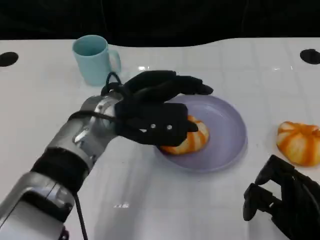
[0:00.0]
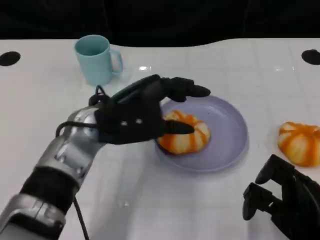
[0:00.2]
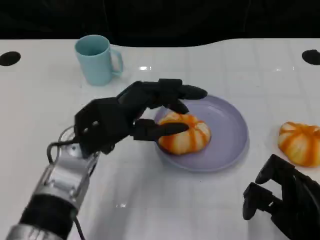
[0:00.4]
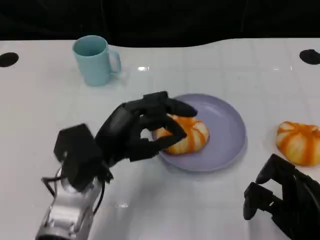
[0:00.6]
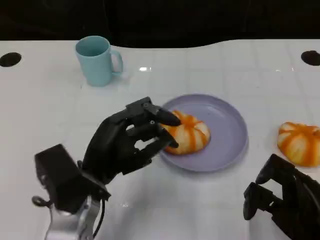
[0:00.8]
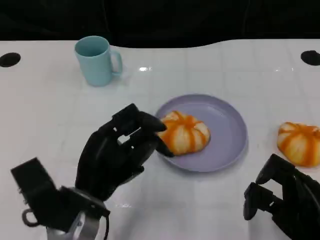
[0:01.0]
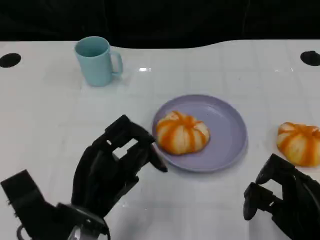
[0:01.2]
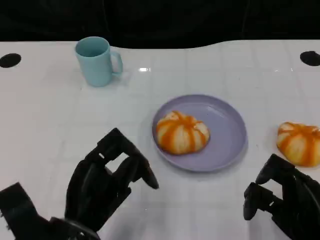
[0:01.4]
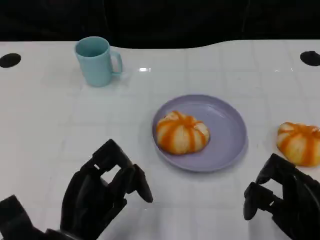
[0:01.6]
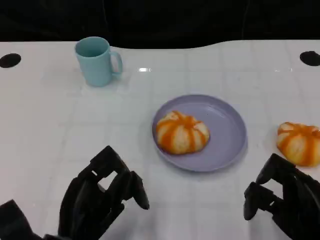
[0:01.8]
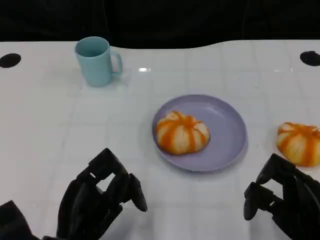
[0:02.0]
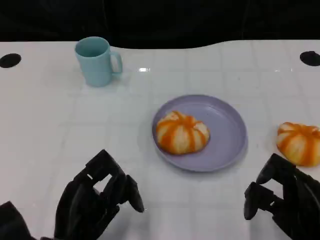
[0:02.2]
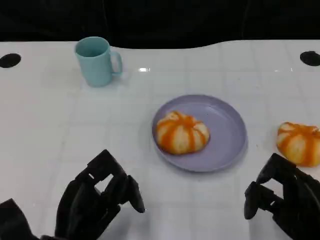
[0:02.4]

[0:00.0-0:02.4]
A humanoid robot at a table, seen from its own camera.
Task of the whole recording: Grasp the bread from the table and place it into the plate.
0:00.0 to 0:01.2: The left hand shifts approximately 15 cm backward, downward and to the left.
0:01.2 to 0:02.4: The hands move only a little.

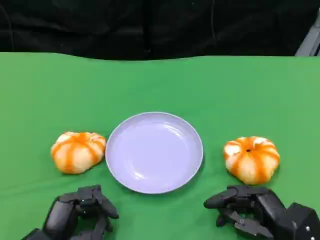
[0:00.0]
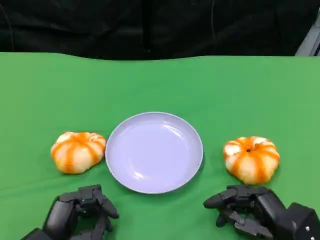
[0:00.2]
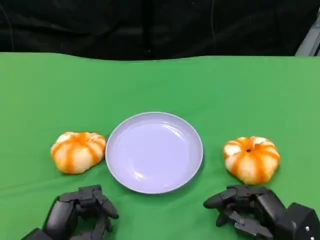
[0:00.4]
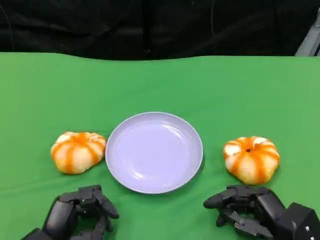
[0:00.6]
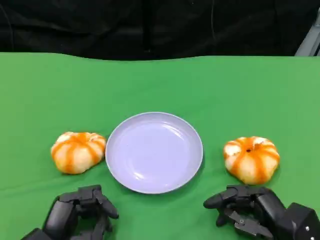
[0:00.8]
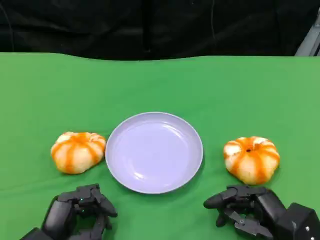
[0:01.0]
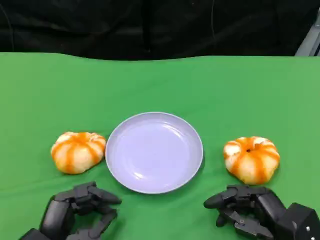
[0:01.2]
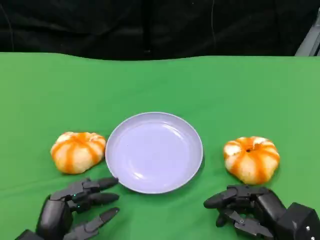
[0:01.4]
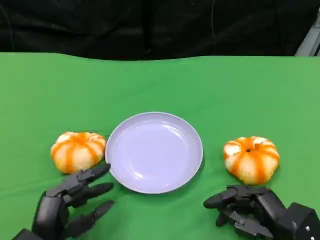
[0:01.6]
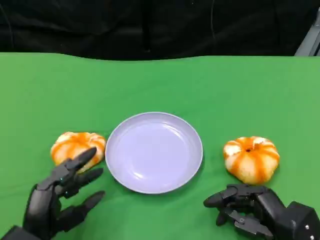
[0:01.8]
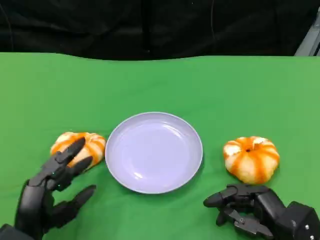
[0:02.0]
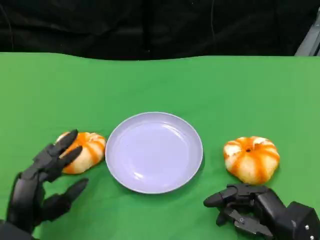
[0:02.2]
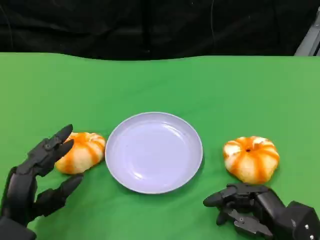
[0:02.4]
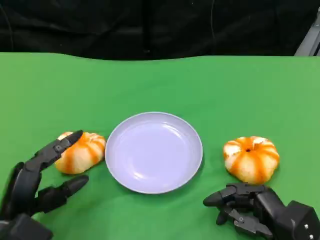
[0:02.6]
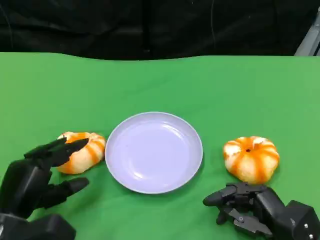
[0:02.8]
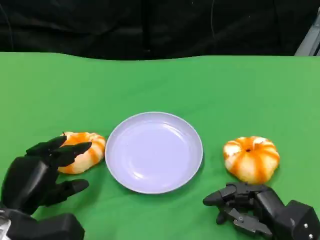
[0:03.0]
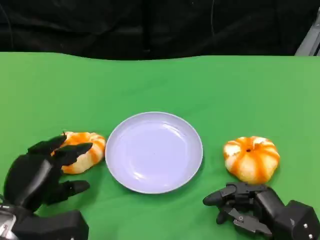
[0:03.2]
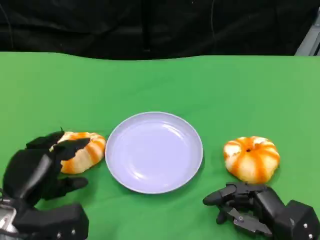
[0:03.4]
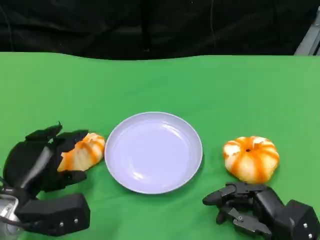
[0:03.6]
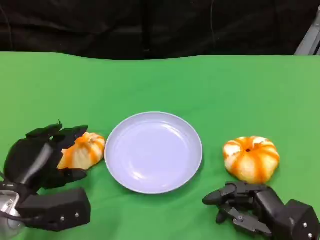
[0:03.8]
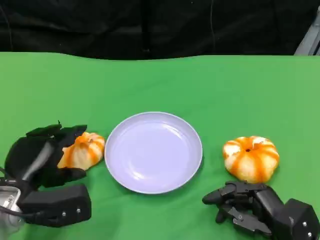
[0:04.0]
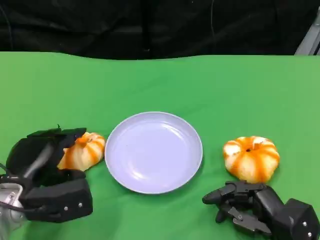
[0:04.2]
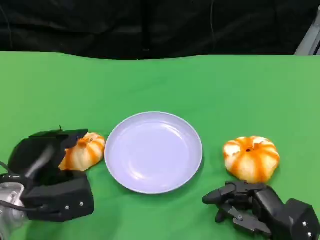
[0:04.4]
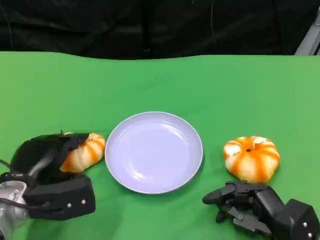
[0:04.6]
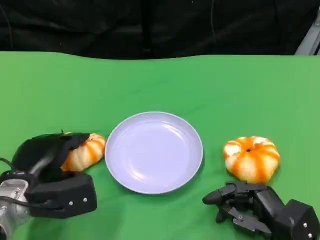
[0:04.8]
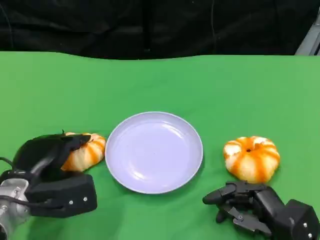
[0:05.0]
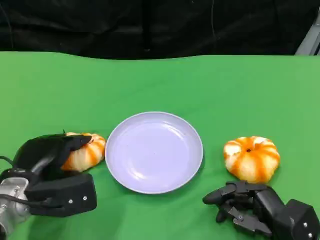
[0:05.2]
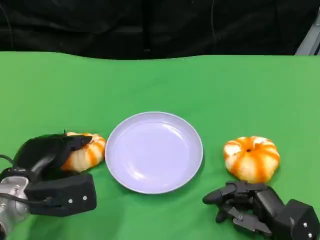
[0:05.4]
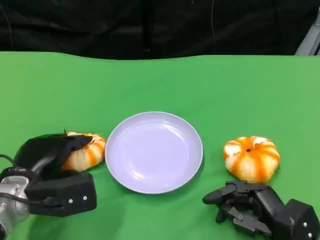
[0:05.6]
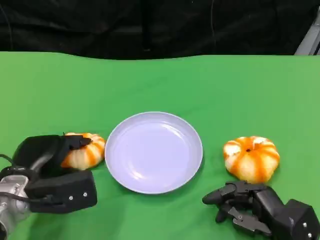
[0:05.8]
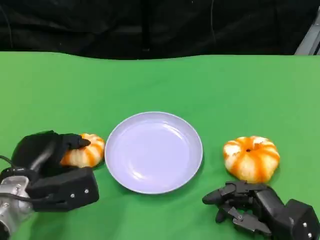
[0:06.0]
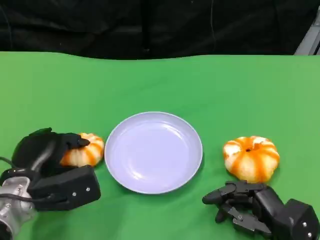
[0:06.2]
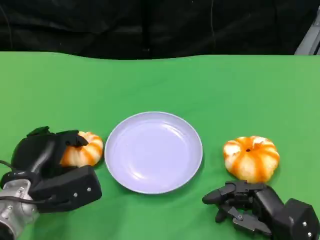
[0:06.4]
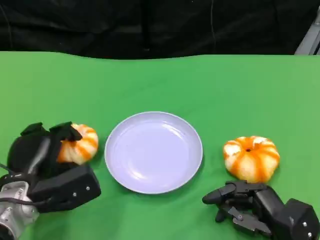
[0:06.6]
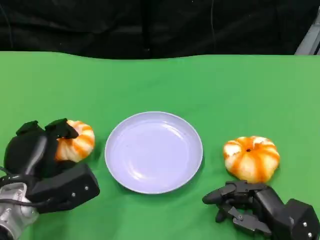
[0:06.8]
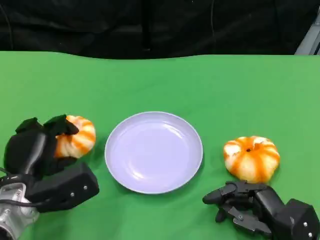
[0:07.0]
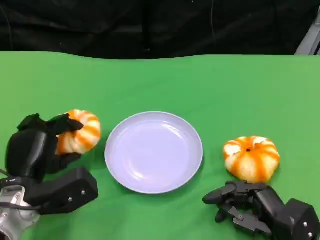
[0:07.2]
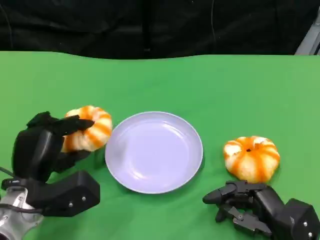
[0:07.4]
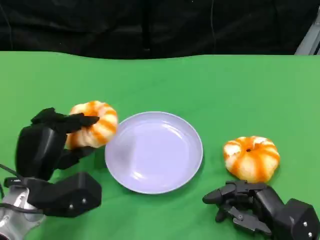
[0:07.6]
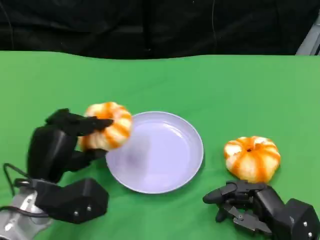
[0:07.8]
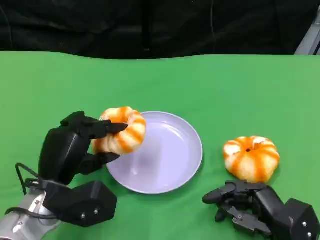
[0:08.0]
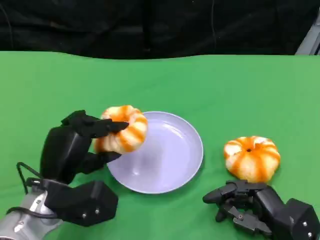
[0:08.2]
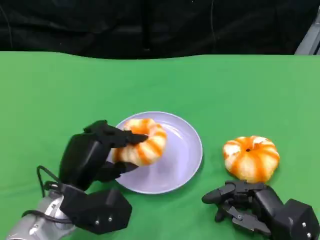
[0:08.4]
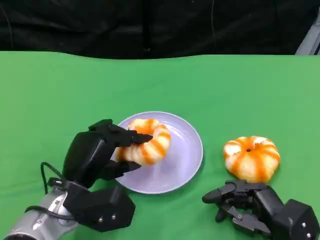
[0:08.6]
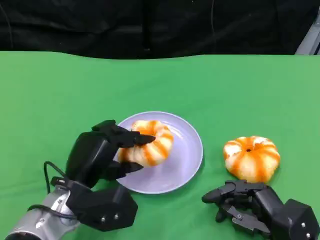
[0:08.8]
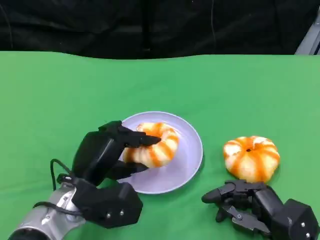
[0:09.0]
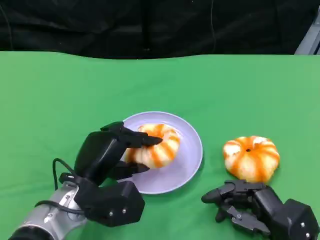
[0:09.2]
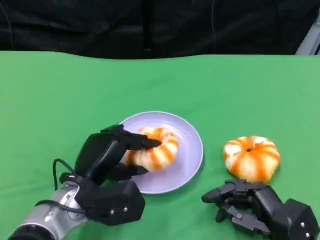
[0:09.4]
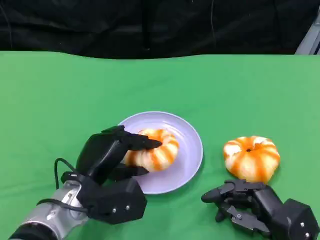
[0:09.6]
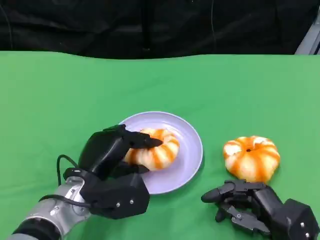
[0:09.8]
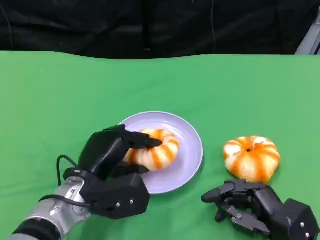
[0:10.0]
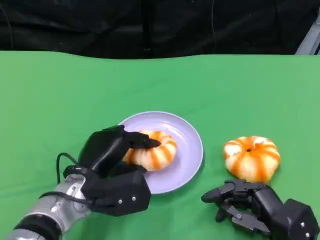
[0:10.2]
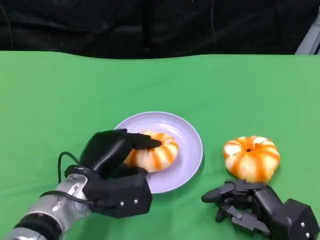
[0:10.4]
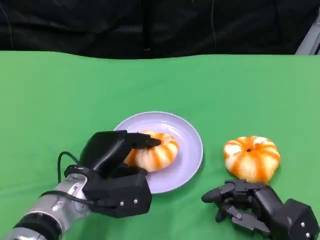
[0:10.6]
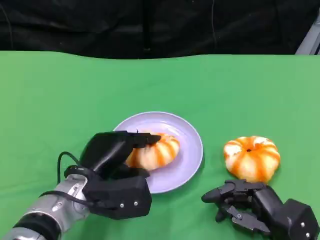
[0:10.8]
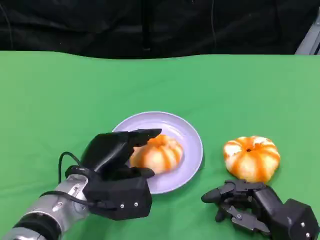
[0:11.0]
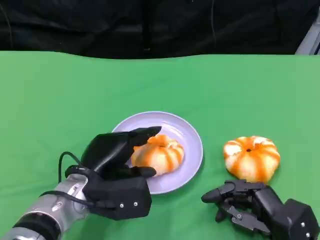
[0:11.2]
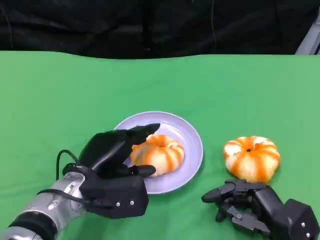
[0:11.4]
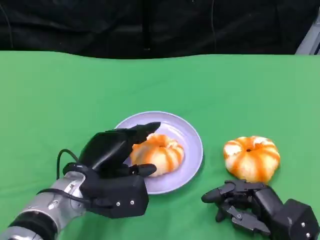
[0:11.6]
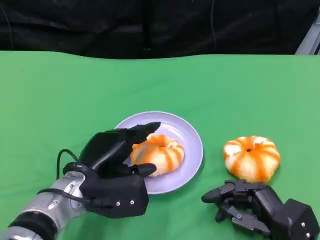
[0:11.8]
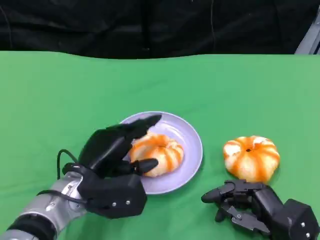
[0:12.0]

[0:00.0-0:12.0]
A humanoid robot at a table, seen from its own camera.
Task of the whole recording: Grasp the bread from the table and place it into the plate.
0:00.0 to 0:01.6: The hands make only small movements.
0:01.6 to 0:03.0: The left hand shifts by about 5 cm.
0:03.0 to 0:04.4: The hands move only a little.
0:04.4 to 0:06.0: The hands move only a little.
0:07.6 to 0:09.0: The left hand travels to the right by roughly 5 cm.
0:09.0 to 0:12.0: There are only small adjustments of the hands.

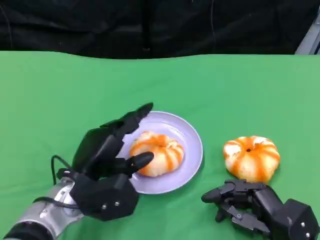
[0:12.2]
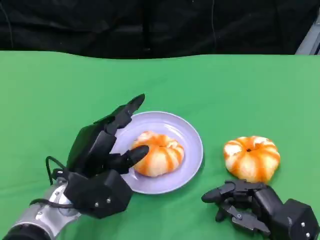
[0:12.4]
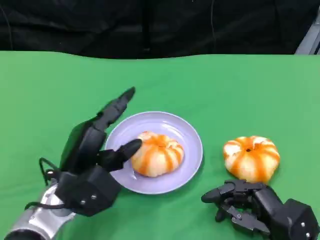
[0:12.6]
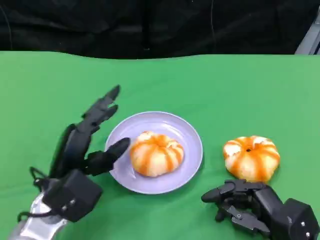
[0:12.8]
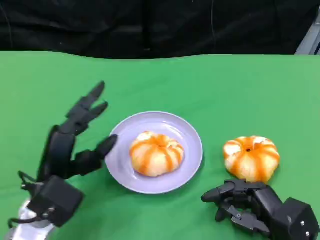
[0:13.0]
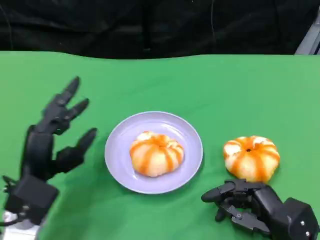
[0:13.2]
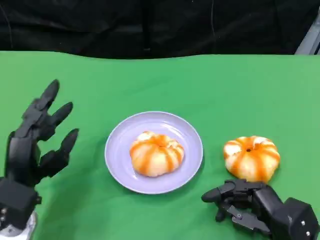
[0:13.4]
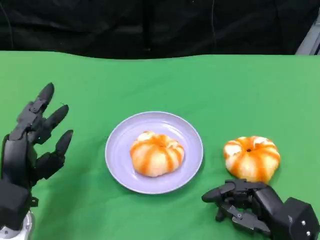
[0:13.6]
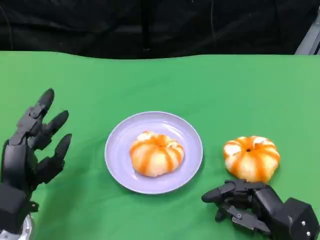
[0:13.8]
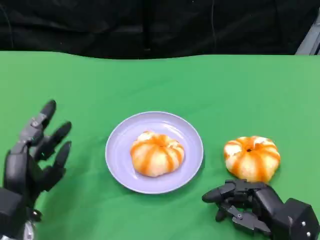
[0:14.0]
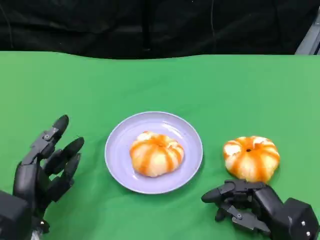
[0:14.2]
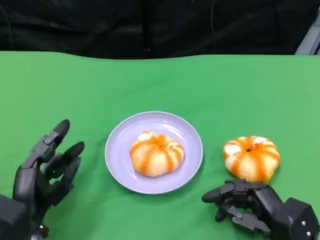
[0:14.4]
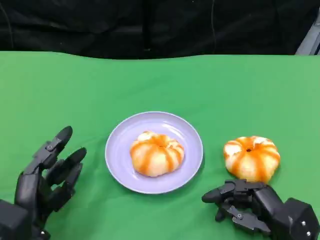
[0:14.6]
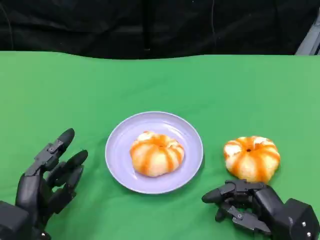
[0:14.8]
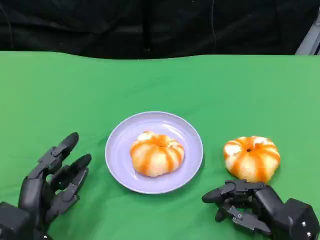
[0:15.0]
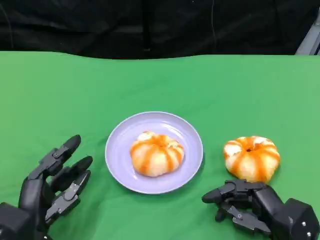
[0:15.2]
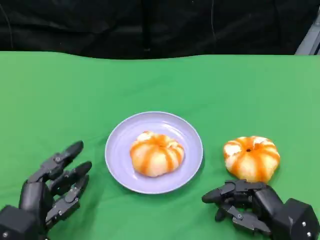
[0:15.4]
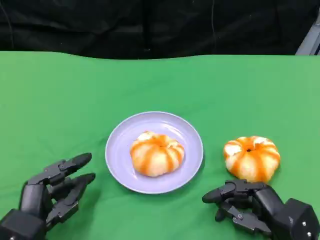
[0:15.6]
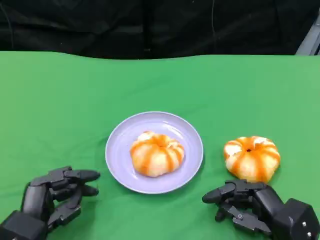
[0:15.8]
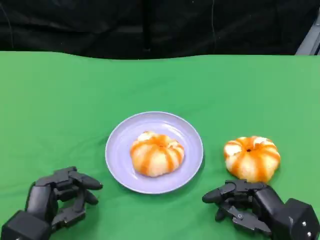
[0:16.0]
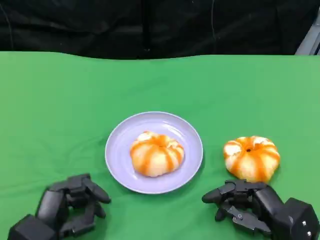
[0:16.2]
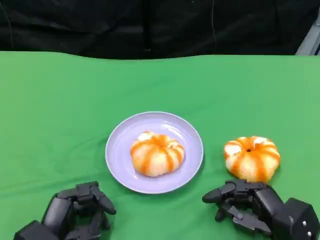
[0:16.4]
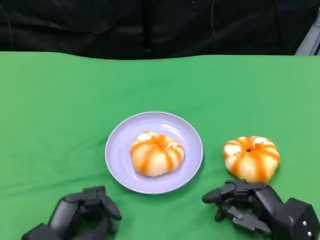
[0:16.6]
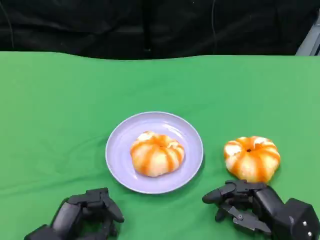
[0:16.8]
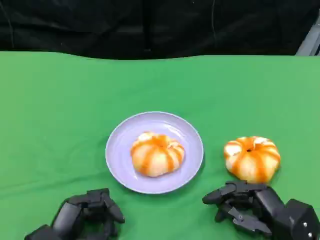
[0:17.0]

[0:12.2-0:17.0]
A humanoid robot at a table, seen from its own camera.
Task of the whole recording: Grasp the bread from the table and place it into the plate.
0:12.2 to 0:13.8: The left hand moves to the left, approximately 10 cm.
0:13.8 to 0:15.4: The left hand changes place by about 5 cm.

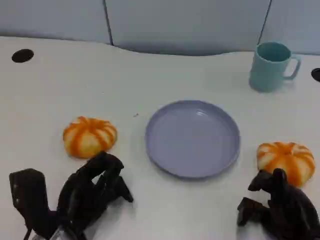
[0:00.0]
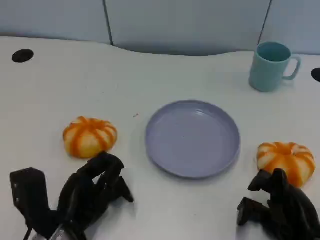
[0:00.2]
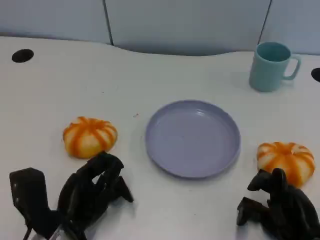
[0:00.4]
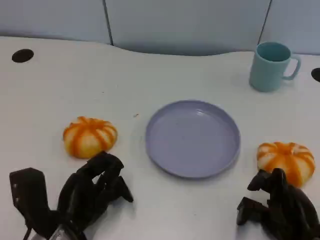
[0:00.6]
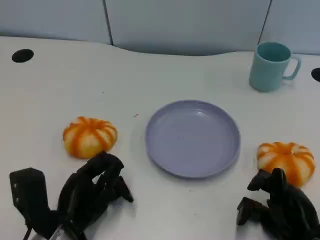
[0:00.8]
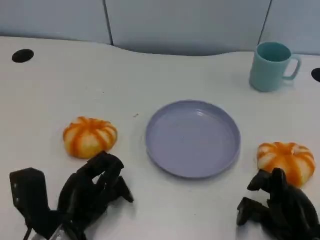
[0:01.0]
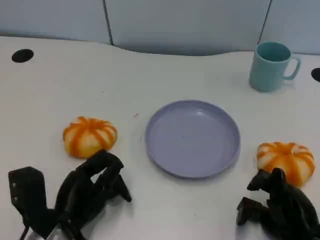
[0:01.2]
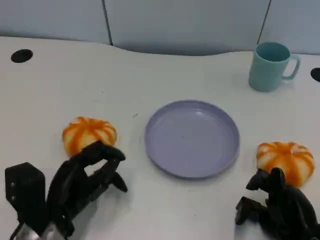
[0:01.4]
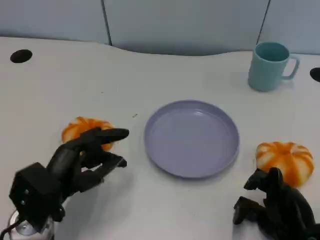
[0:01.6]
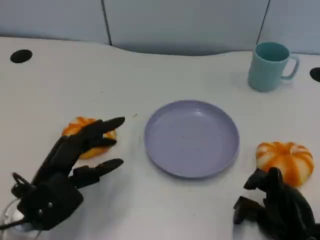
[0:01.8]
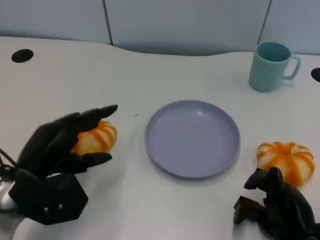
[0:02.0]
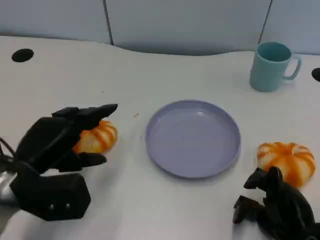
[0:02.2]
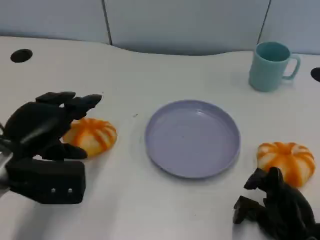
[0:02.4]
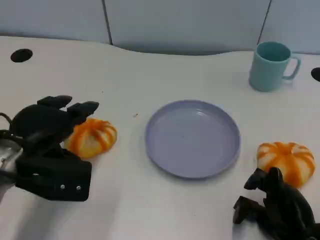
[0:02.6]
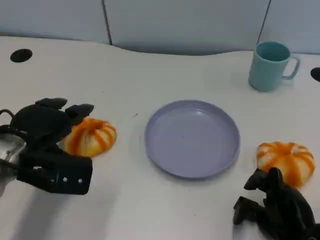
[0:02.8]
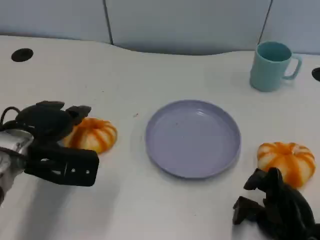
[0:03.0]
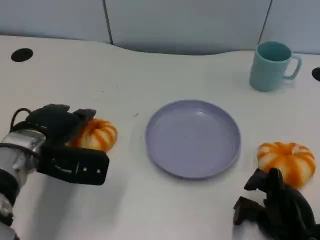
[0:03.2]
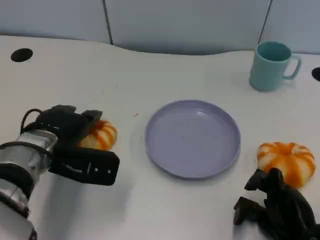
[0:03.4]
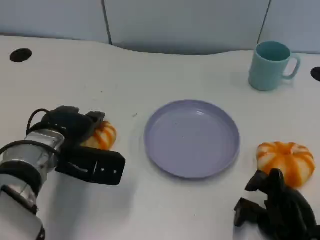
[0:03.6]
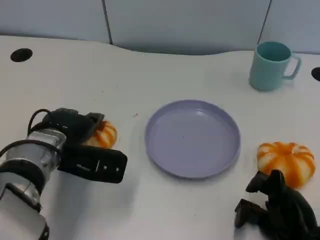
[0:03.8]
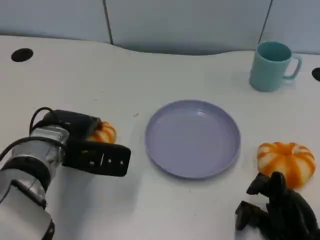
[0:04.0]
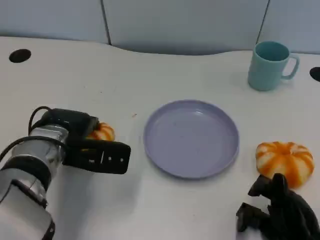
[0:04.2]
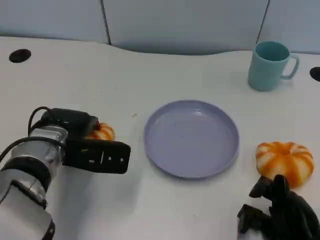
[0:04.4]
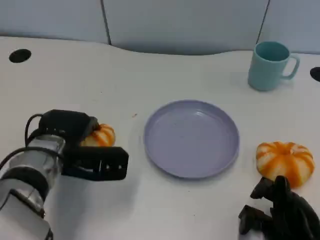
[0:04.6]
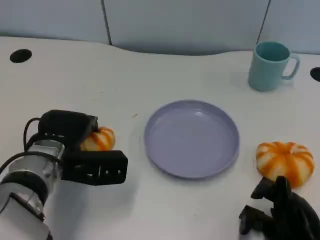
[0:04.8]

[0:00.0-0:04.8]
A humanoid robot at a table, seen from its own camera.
Task of the whole recording: Grasp the bread from the table and place it into the plate.
0:01.6 to 0:03.2: The left hand shifts roughly 10 cm forward.
0:03.2 to 0:04.8: The hands stay close to where they were, moving slightly.
